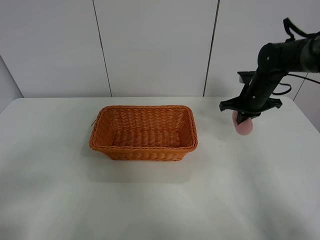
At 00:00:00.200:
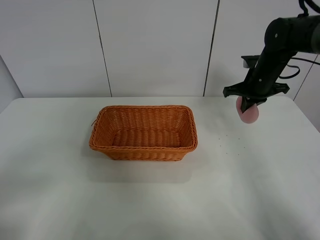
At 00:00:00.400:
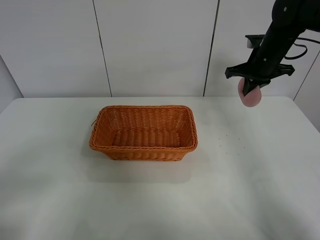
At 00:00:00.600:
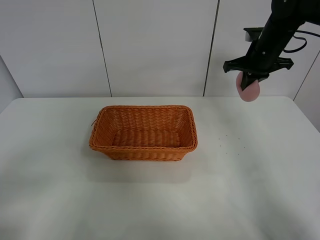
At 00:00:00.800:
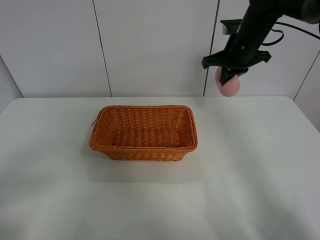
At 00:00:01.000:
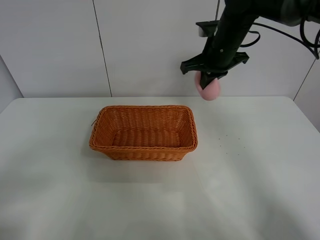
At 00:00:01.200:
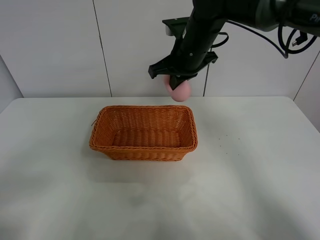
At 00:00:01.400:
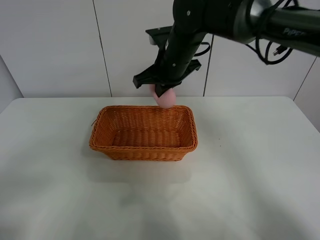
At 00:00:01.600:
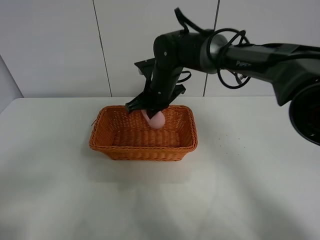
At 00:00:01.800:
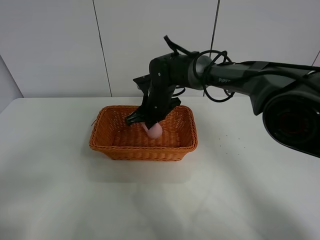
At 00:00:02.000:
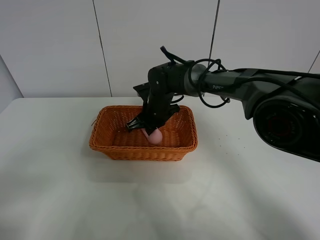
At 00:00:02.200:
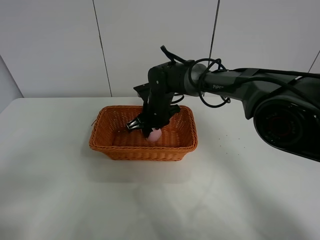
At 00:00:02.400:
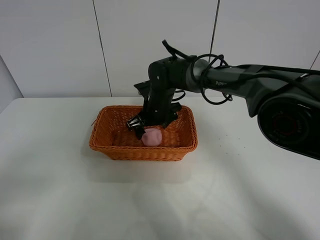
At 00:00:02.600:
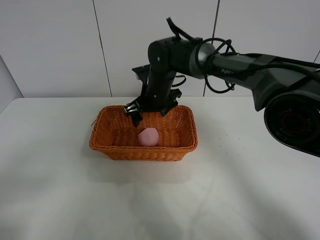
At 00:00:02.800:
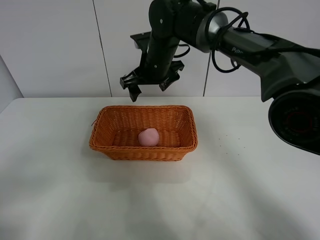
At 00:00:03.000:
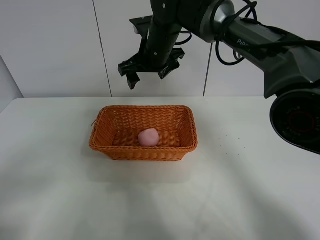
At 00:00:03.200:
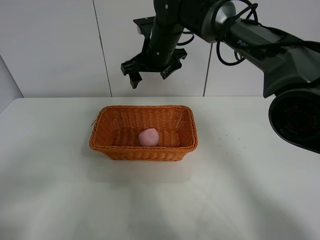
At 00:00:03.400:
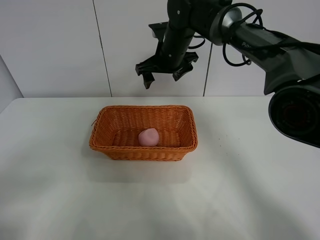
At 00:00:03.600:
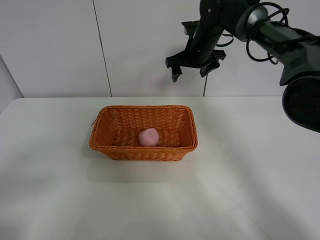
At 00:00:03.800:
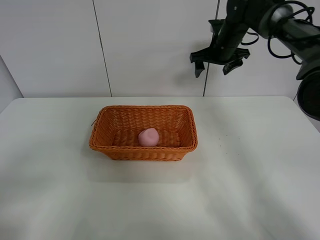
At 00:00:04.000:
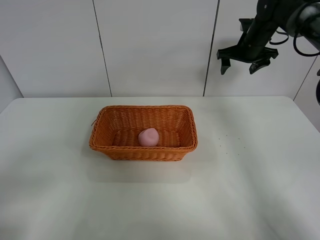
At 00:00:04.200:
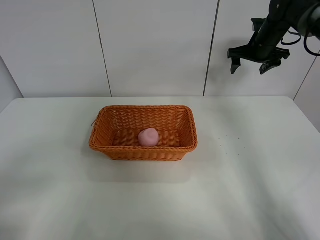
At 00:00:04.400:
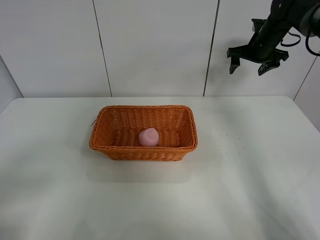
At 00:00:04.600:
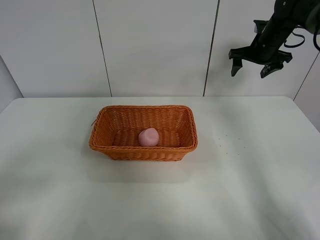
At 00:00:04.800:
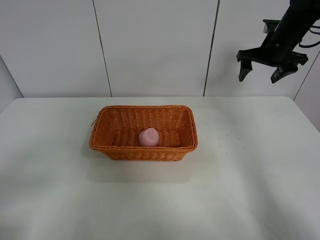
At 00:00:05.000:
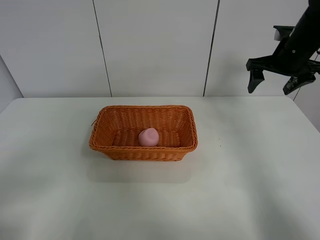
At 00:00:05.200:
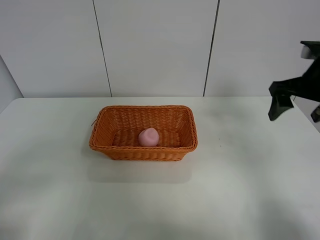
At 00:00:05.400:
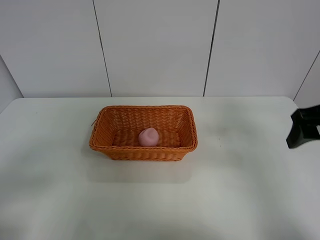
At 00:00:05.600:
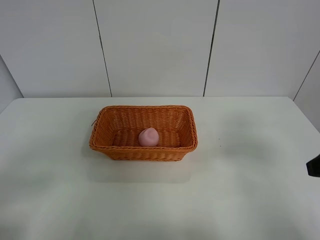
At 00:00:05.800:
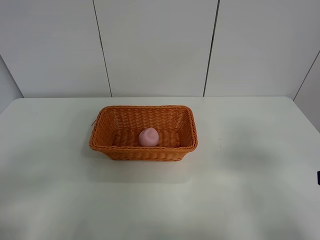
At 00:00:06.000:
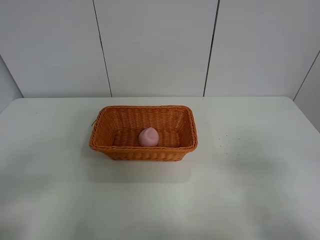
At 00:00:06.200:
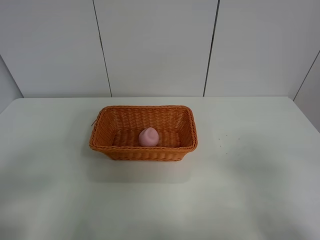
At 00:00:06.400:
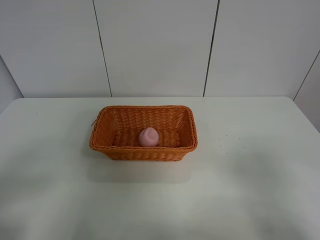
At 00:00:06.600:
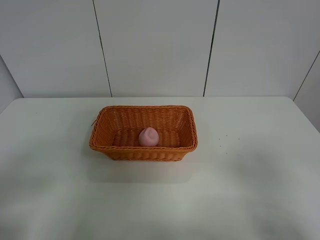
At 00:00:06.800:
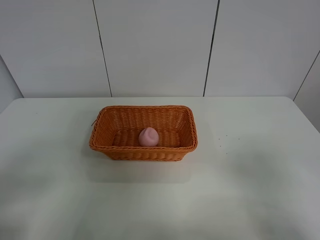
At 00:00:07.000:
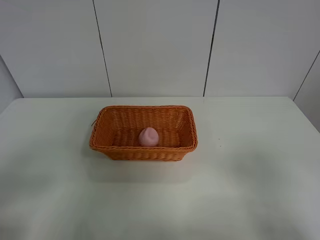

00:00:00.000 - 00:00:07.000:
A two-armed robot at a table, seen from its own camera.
Step, 00:00:00.000 - 00:00:03.000: Place the peach in the basket with right gripper.
00:00:00.000 - 00:00:01.400: The right gripper travels to the left and upward by about 25 cm.
00:00:01.400 - 00:00:02.800: The right gripper travels downward and back again, roughly 15 cm each way, and opens its fingers.
00:00:02.800 - 00:00:04.200: The right gripper heads to the right, covering roughly 30 cm.
00:00:04.200 - 00:00:05.600: The right gripper shifts approximately 40 cm backward.
00:00:05.600 - 00:00:07.000: The right gripper goes approximately 10 cm backward.
